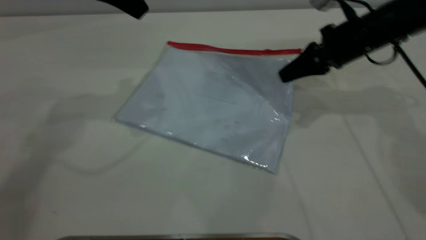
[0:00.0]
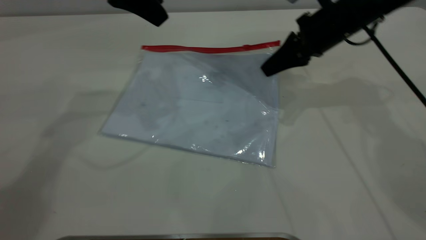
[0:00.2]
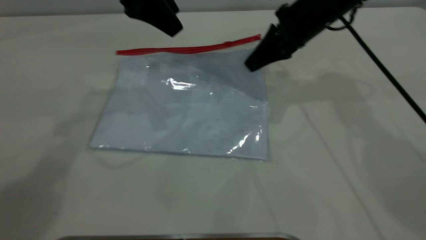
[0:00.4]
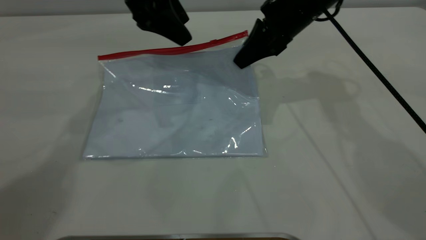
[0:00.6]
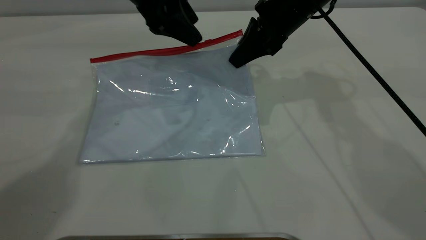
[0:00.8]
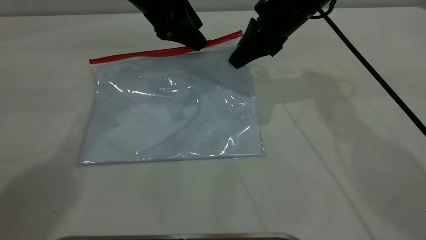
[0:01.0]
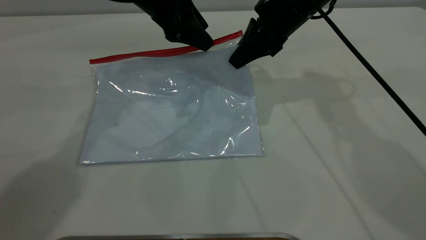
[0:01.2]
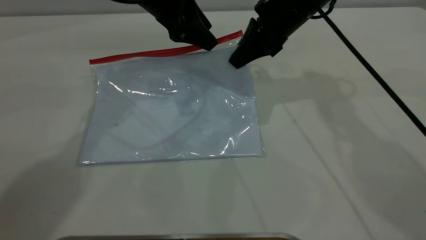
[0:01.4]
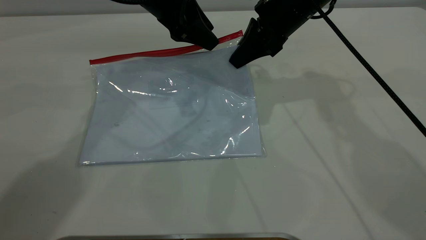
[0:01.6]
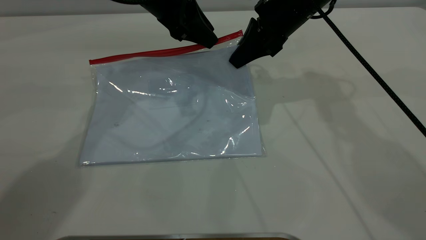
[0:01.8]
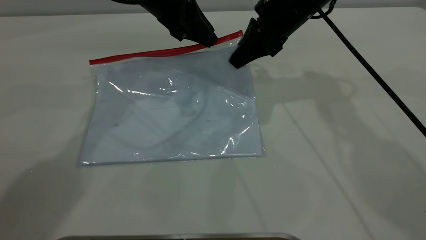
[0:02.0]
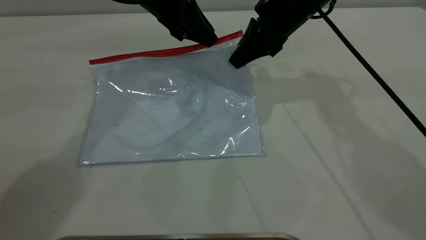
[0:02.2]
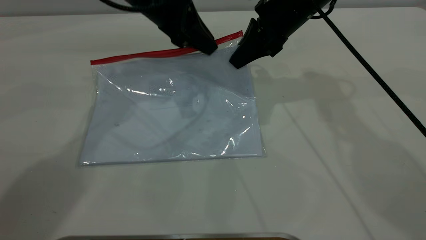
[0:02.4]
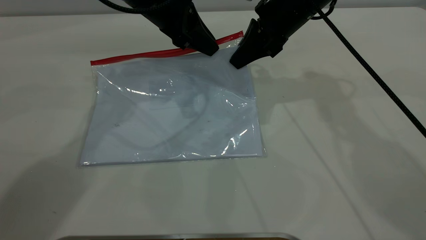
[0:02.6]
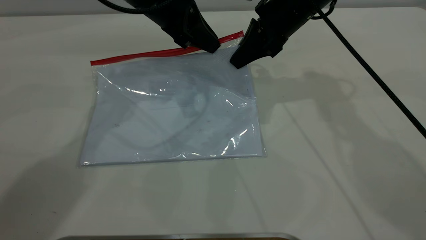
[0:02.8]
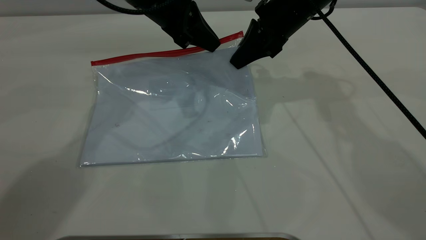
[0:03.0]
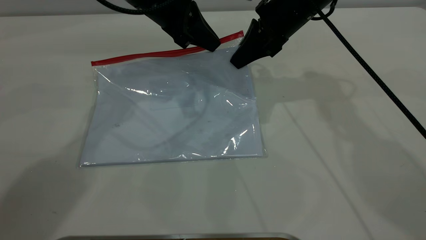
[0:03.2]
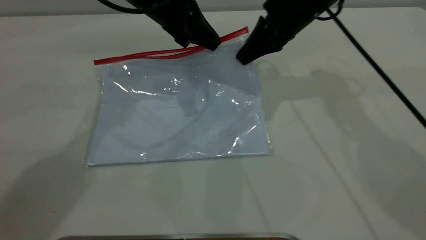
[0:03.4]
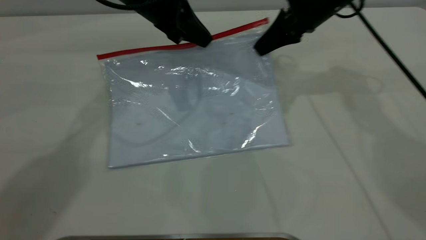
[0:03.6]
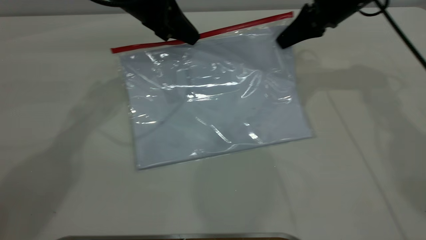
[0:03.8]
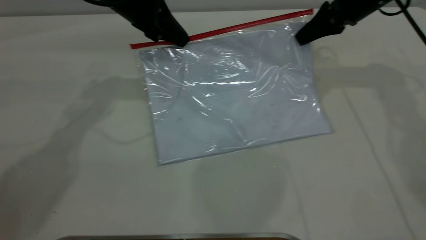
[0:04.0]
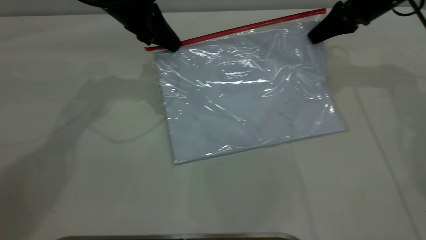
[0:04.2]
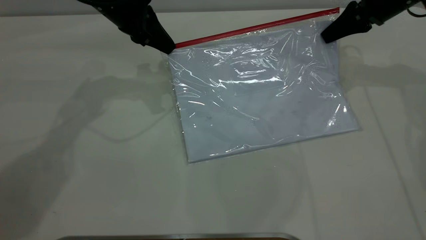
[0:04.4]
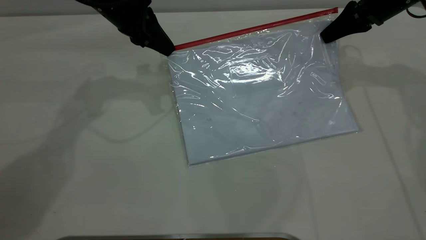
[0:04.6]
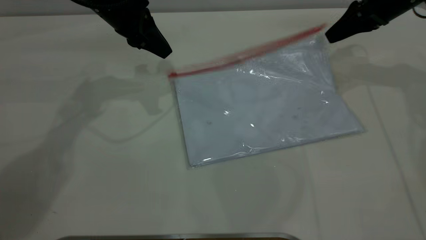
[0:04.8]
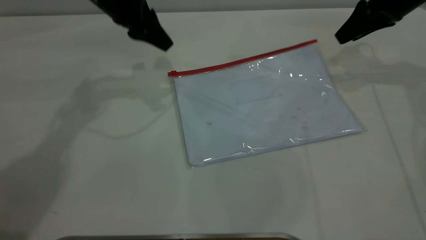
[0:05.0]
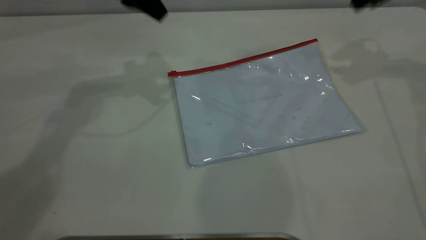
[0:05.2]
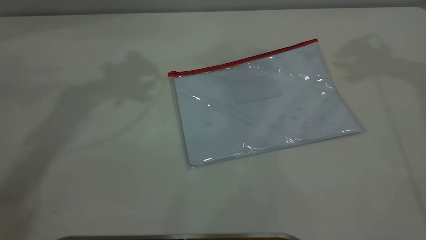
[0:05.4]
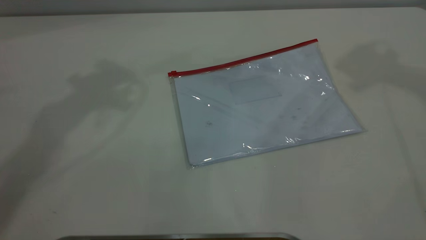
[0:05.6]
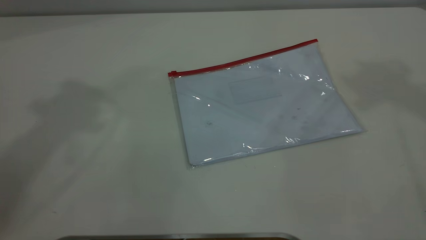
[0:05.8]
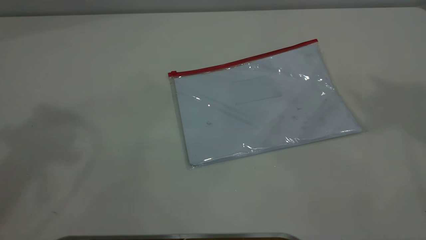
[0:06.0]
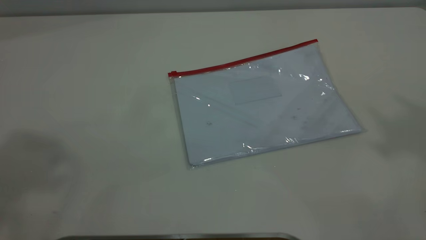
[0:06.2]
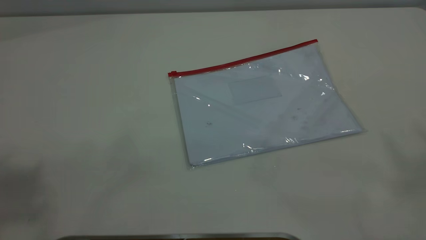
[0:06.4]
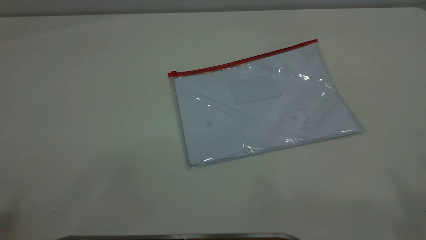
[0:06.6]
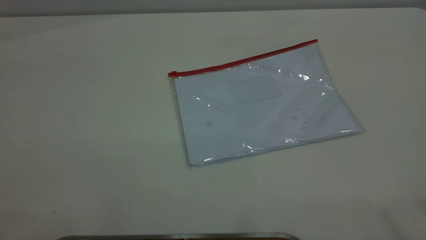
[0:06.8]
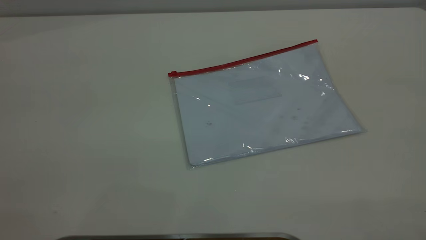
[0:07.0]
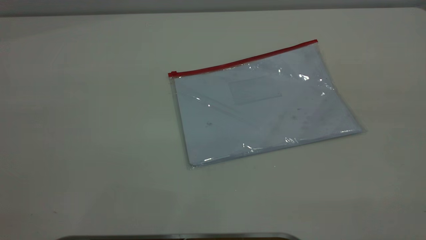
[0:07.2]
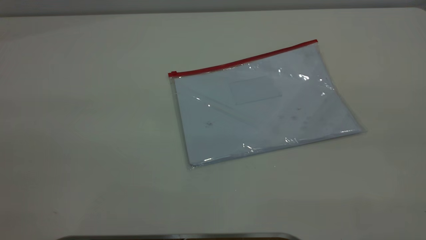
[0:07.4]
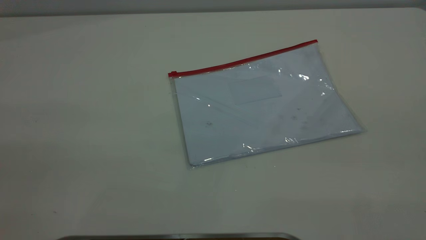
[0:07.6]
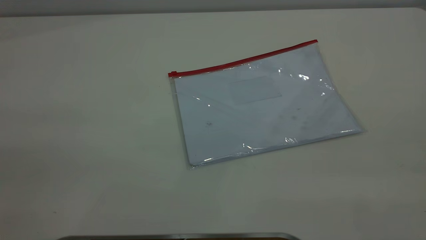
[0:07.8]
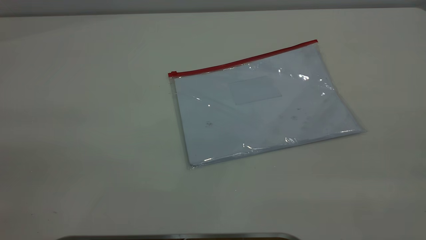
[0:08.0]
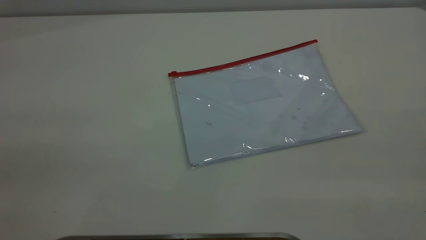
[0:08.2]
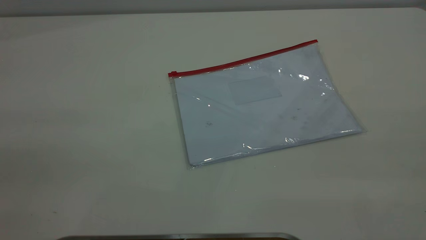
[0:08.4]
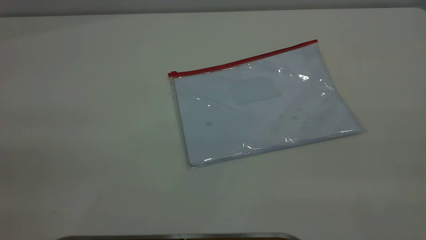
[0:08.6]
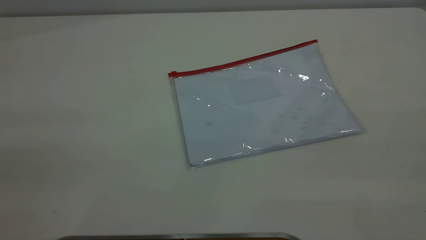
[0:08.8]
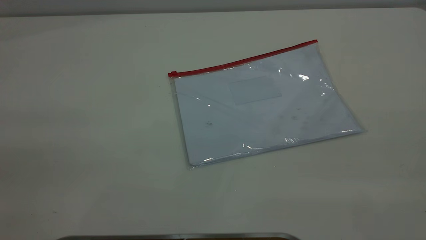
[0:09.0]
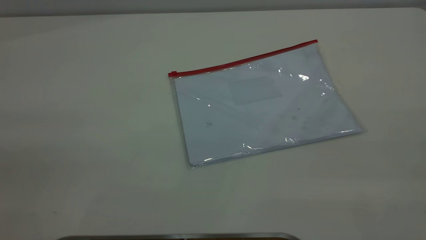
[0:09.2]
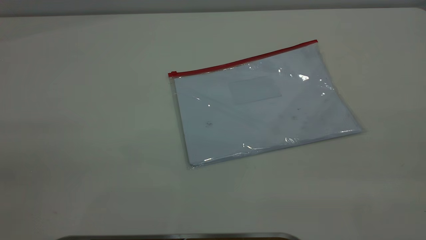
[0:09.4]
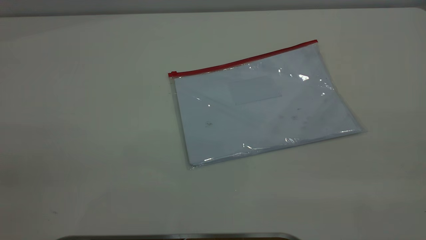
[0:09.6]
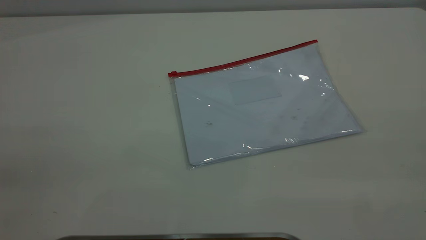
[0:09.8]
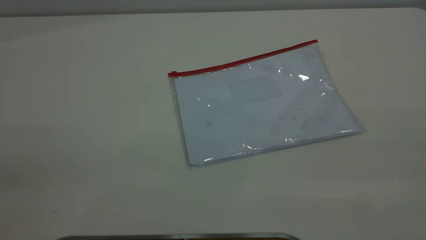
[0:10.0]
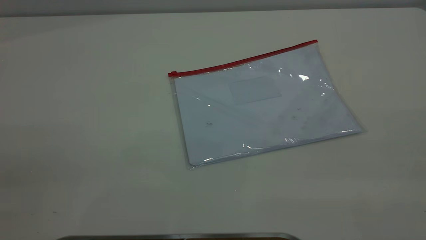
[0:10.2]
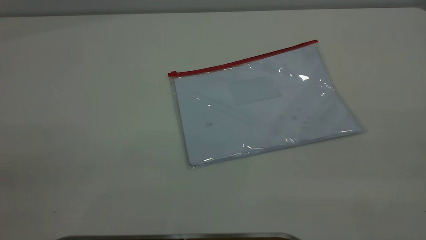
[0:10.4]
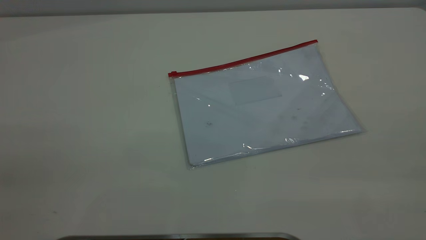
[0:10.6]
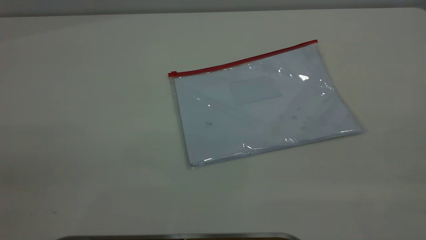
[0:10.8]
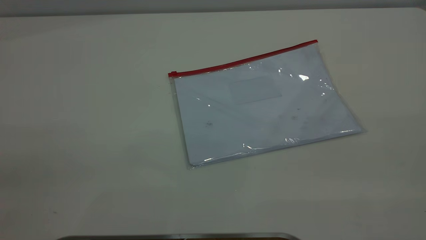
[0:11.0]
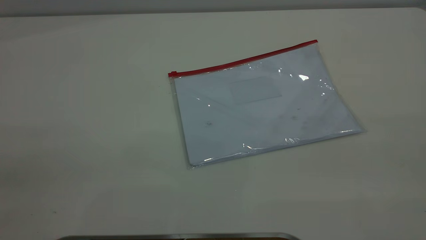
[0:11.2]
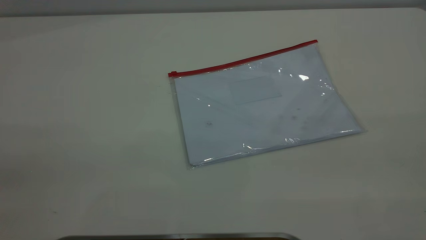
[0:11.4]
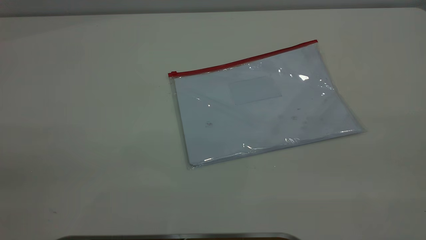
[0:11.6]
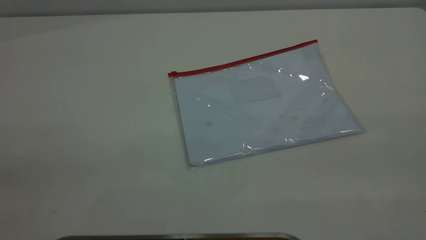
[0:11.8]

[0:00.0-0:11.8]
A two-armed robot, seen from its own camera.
Step, 0:00.2 to 0:04.6: Pulling up the zipper on the transparent plastic bag with the left gripper to close it.
Step, 0:04.8 to 0:05.6: Place the transparent plastic bag.
0:00.0 to 0:01.4: The left gripper moves downward and to the right, approximately 10 cm; the right gripper goes roughly 10 cm to the left.
0:01.4 to 0:03.0: The left gripper closes up.
0:03.0 to 0:04.4: The right gripper goes some 15 cm to the right. Meanwhile the left gripper travels to the left by about 5 cm.
0:04.4 to 0:06.0: The left gripper is displaced upward and backward by approximately 40 cm, and opens; the right gripper moves upward, roughly 50 cm, and opens its fingers.
